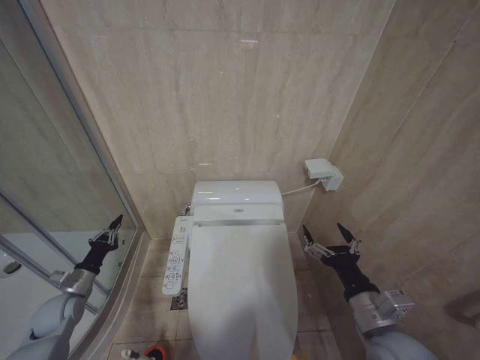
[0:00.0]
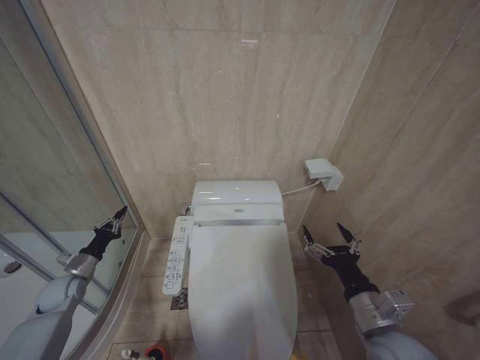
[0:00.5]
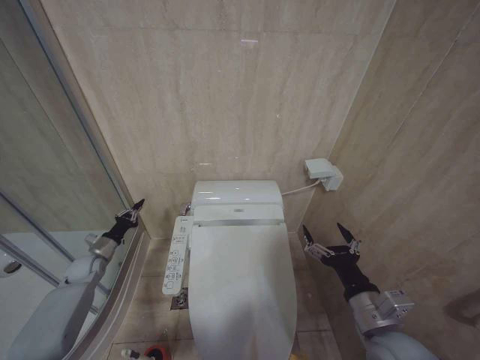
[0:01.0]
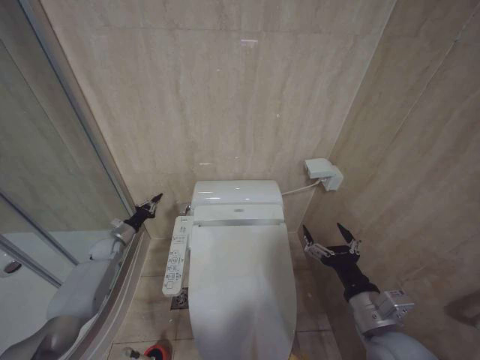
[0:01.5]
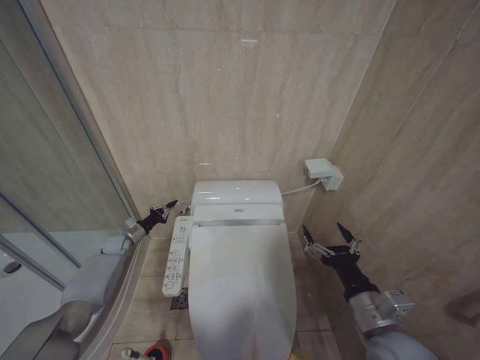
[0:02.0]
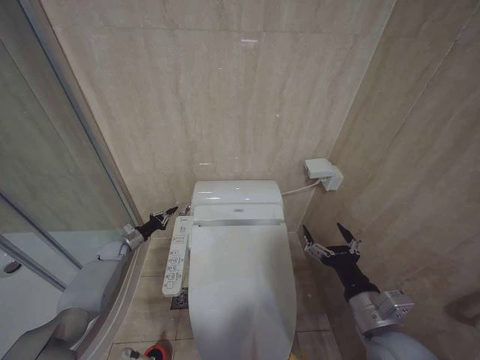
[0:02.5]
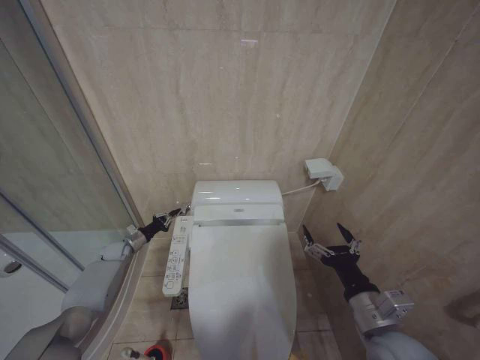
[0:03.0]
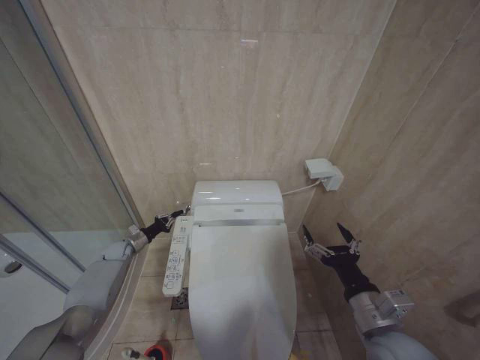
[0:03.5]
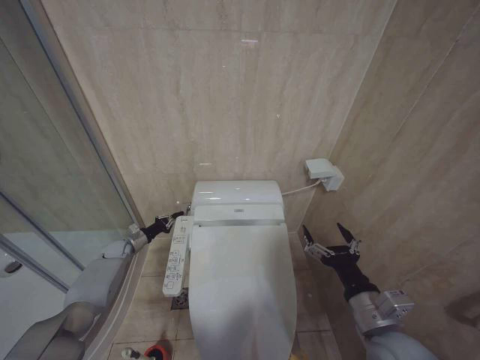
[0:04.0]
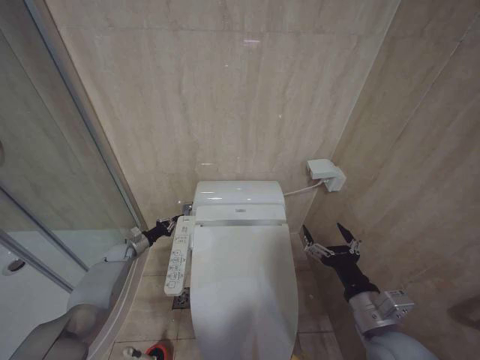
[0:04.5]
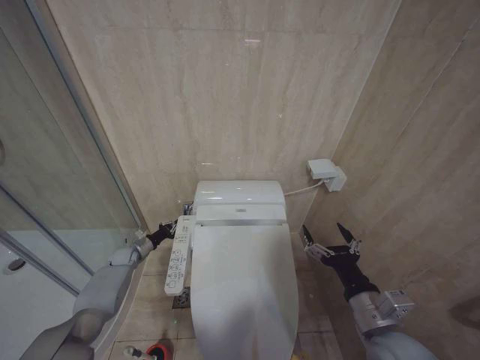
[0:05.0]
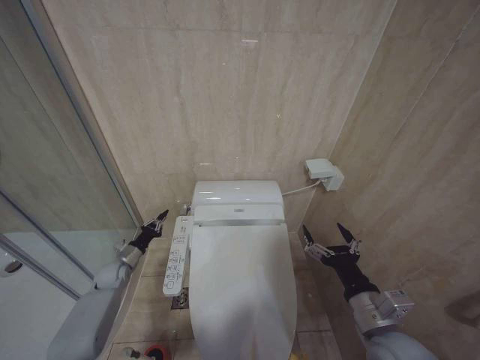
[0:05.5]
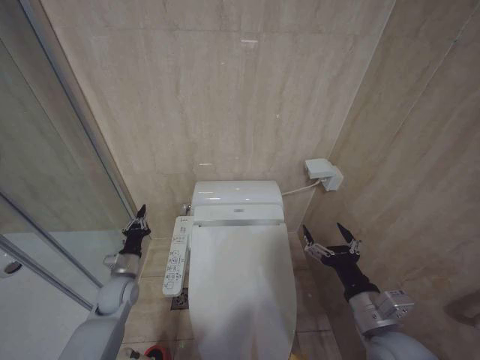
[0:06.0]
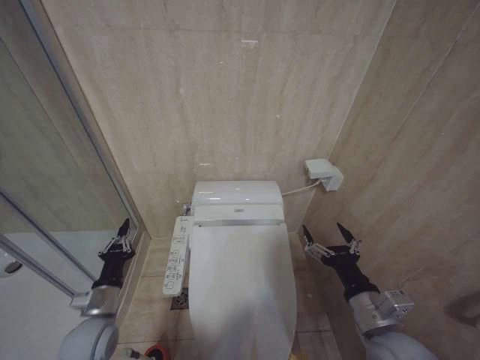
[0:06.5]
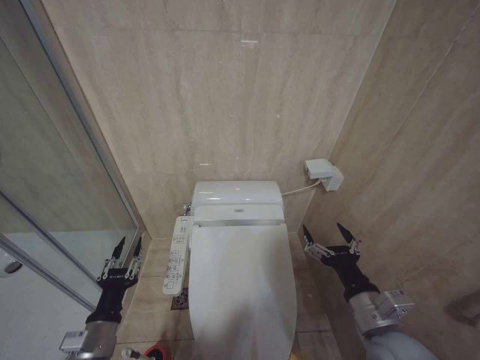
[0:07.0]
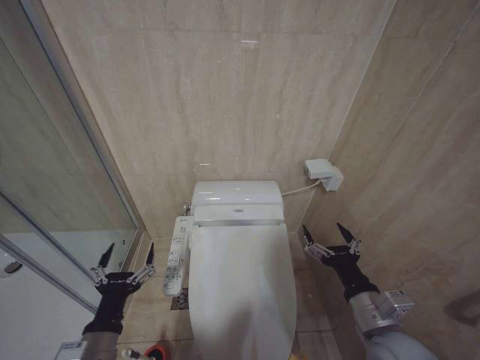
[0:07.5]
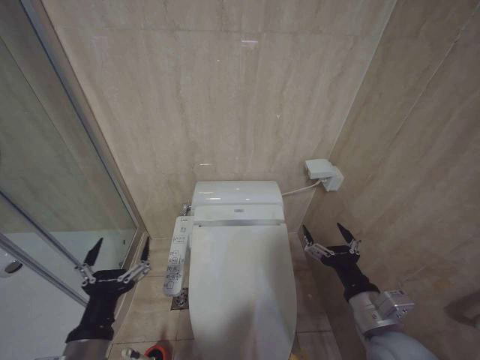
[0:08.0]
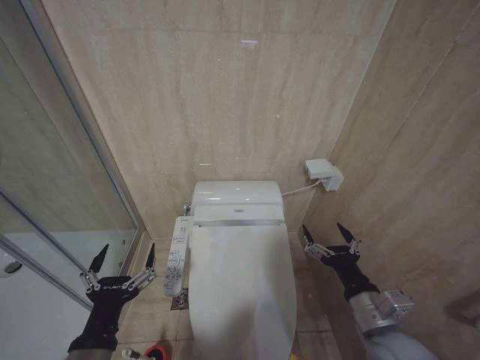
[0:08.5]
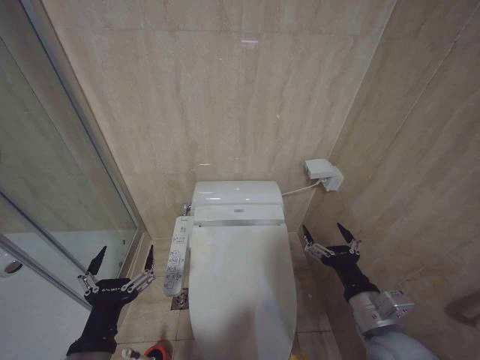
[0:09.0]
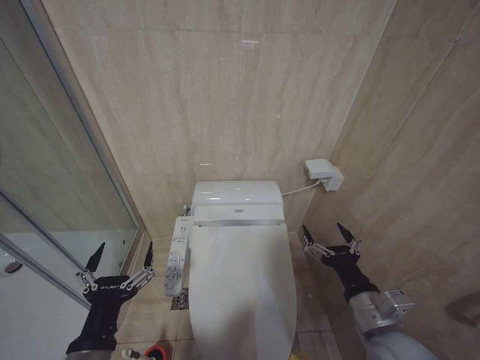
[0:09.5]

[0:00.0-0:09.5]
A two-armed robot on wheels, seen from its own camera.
Task of the whole recording: Open the toilet lid, clean the toilet bowl with a toilet brush, close the toilet lid, and flush.
0:00.0 to 0:02.0: The left gripper shifts some 20 cm forward.
0:02.0 to 0:04.0: There are only small adjustments of the grippers.
0:04.0 to 0:05.5: The left gripper goes roughly 5 cm backward.
0:05.5 to 0:07.5: The left gripper is displaced backward, to the right and upward by about 35 cm, and opens up.
0:07.5 to 0:09.5: The left gripper heads upward, covering roughly 5 cm.

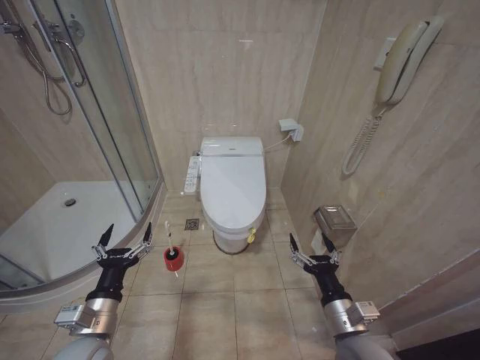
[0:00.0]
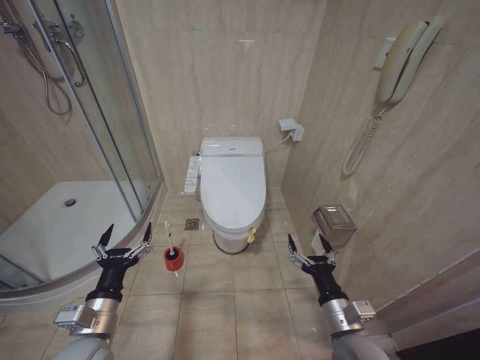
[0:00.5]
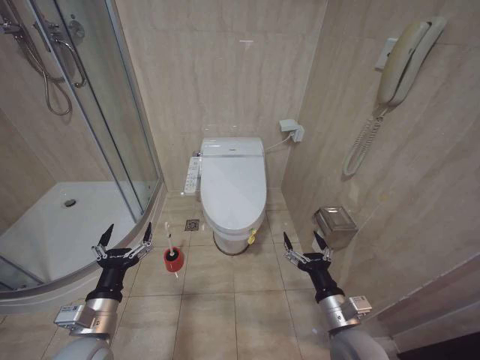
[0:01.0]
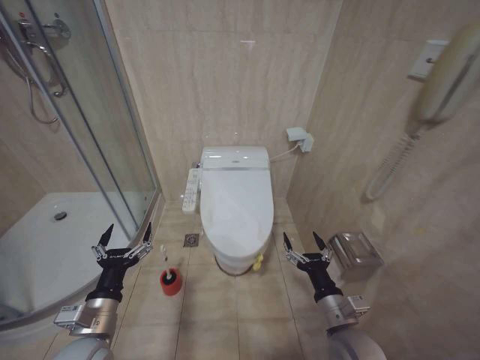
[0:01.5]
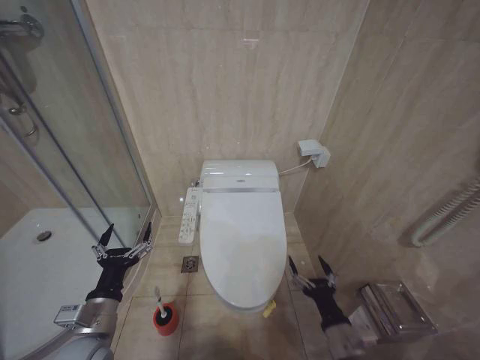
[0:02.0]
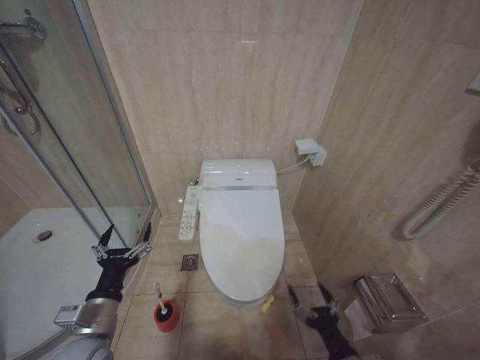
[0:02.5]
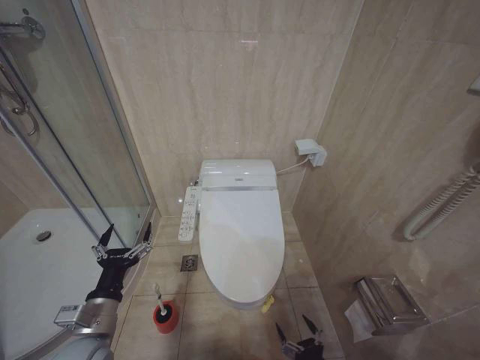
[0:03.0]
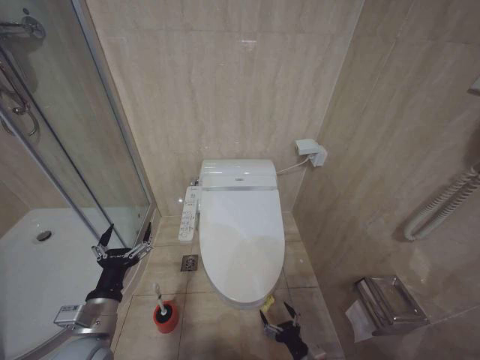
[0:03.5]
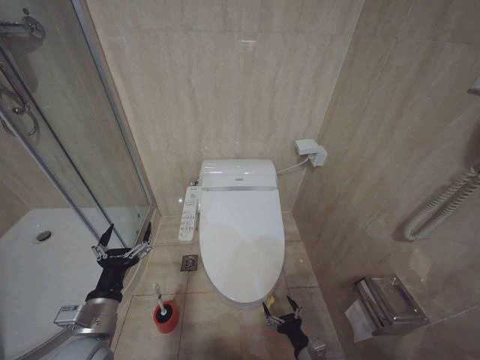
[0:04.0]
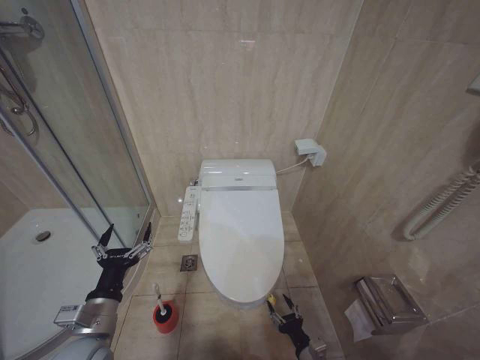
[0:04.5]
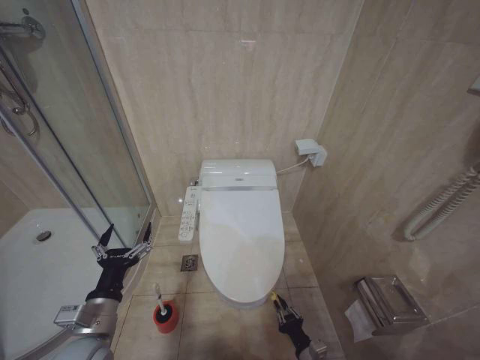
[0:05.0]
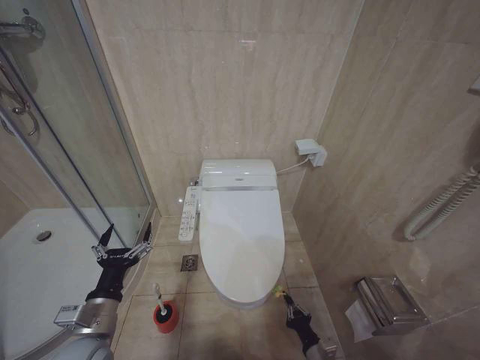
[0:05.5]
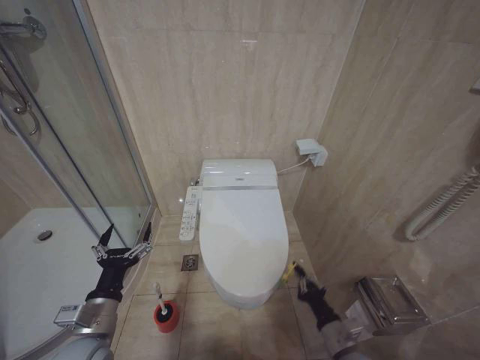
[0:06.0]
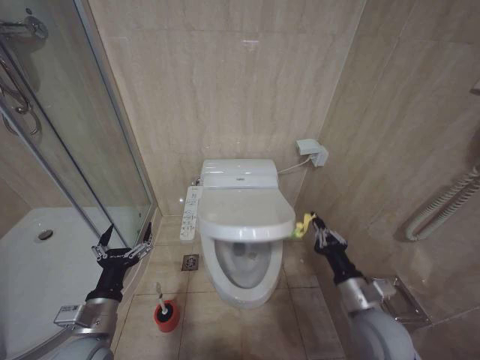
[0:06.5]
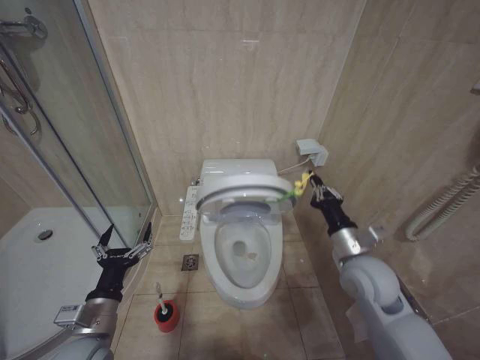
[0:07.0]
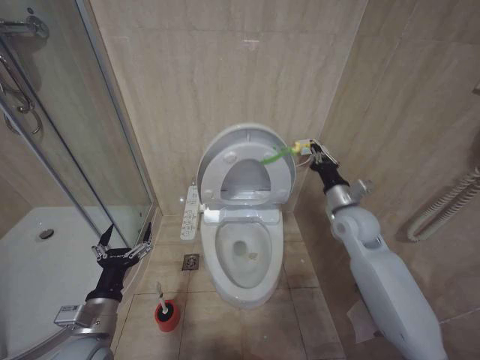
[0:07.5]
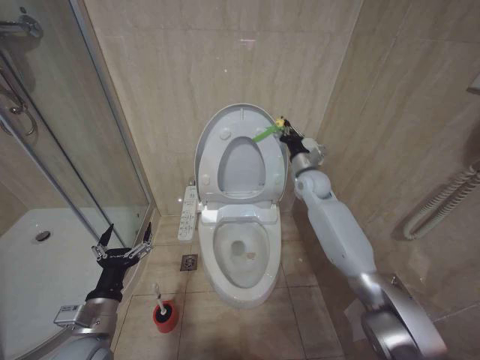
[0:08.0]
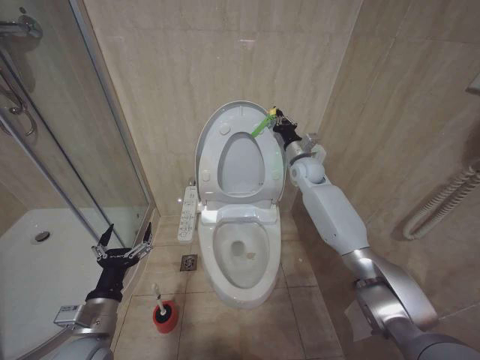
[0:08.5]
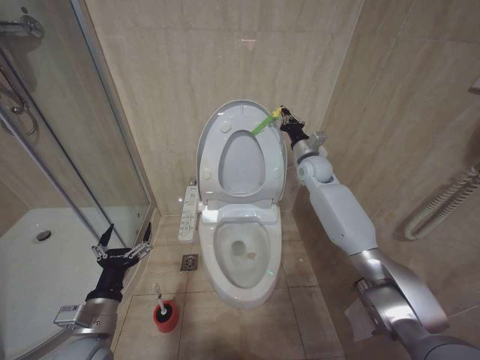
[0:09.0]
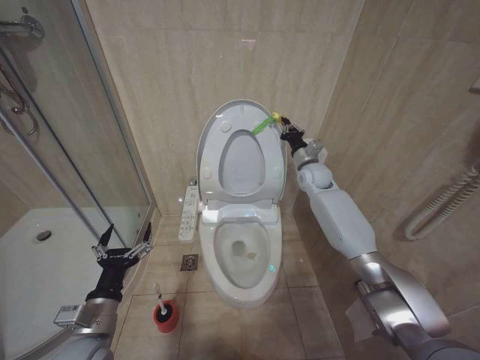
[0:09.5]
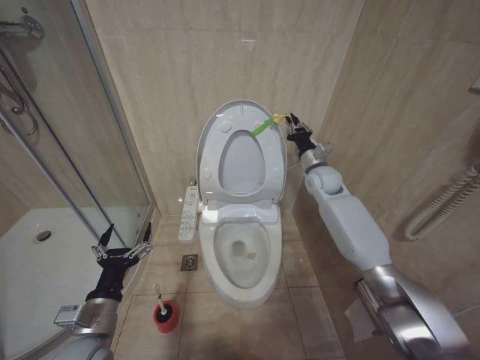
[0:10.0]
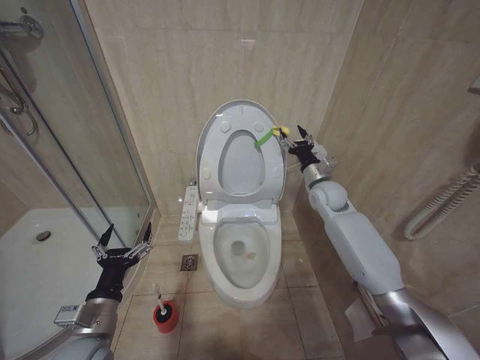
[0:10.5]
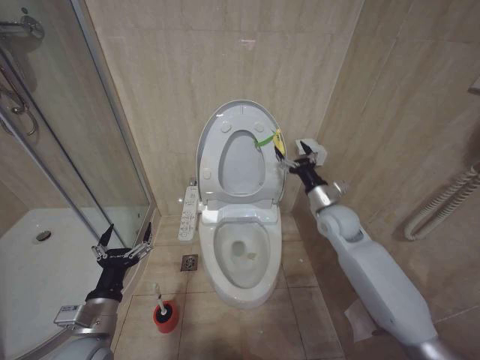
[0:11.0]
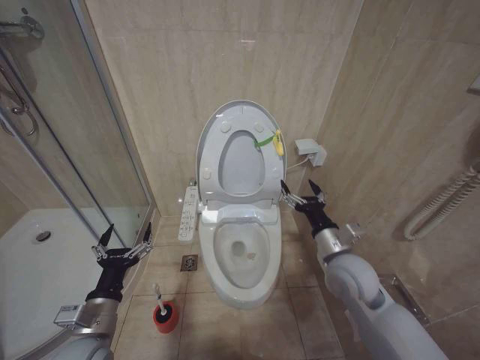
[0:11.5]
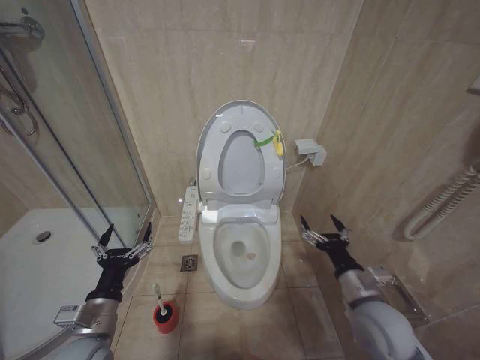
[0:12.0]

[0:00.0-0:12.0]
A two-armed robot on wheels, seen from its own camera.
Task of the whole recording: Open the toilet lid, clean the toilet bowl with a toilet brush, close the toilet lid, and flush.
0:02.0 to 0:04.0: The right gripper goes about 15 cm downward.
0:04.0 to 0:06.0: The right gripper moves upward, approximately 10 cm, and closes its fingers.
0:06.0 to 0:08.0: The right gripper shifts some 40 cm forward and upward.
0:10.0 to 0:12.0: The right gripper goes about 35 cm backward and downward, and opens up.

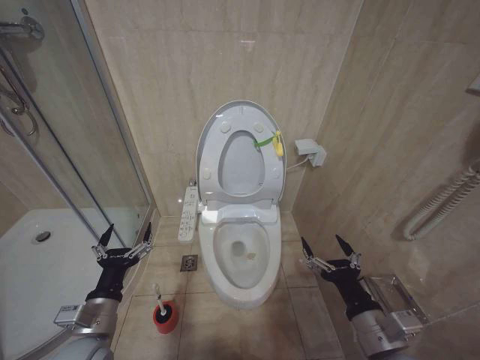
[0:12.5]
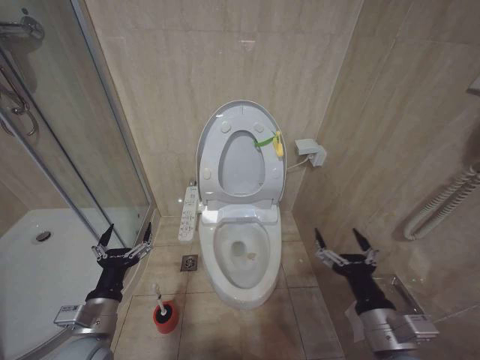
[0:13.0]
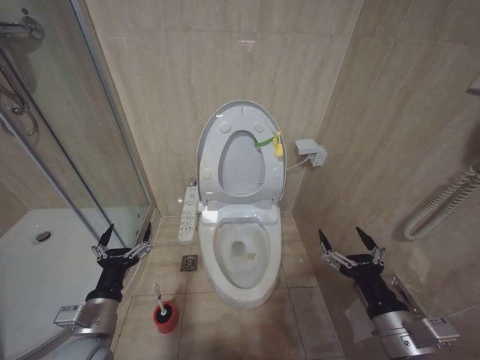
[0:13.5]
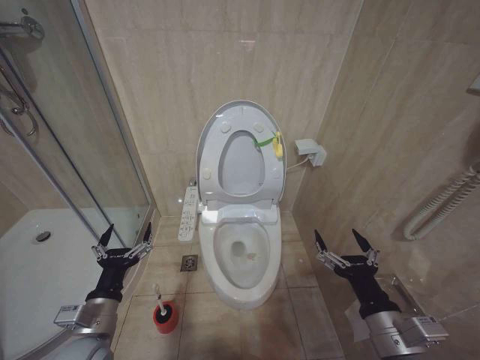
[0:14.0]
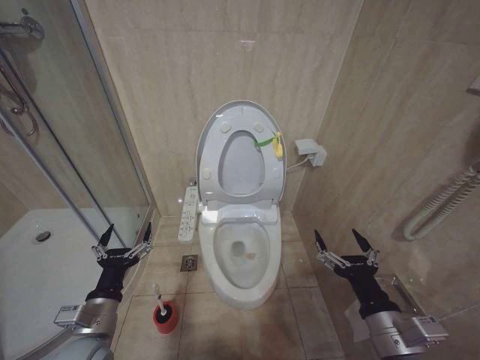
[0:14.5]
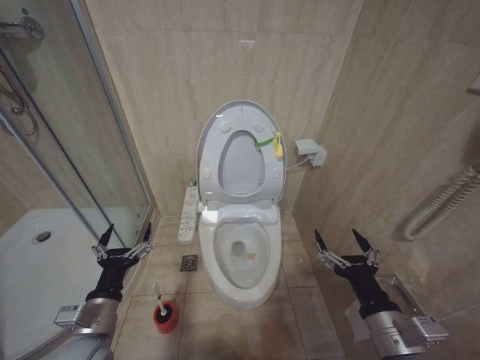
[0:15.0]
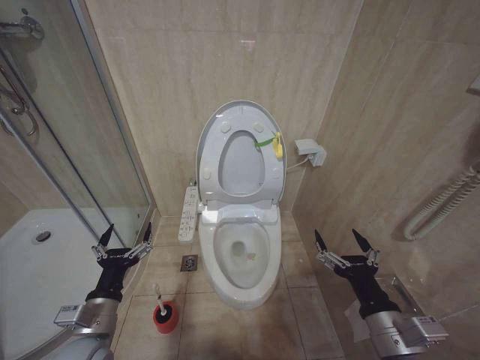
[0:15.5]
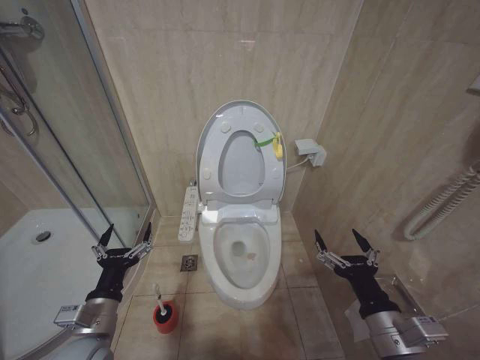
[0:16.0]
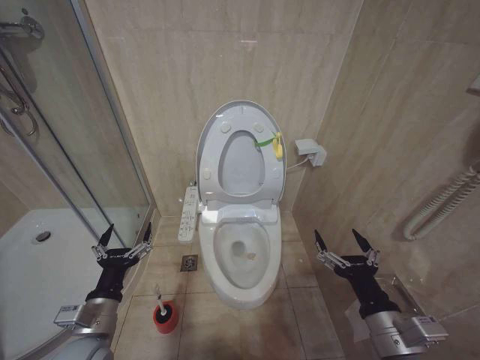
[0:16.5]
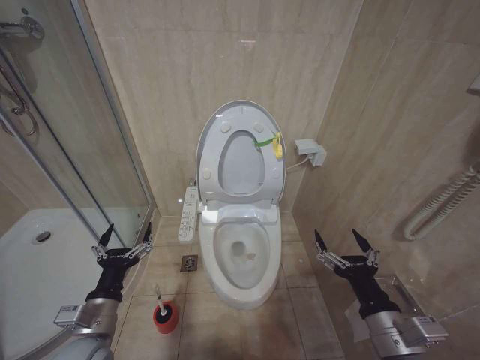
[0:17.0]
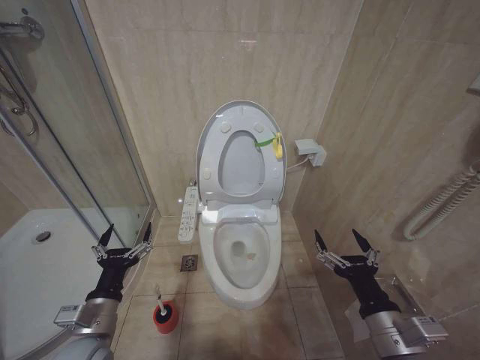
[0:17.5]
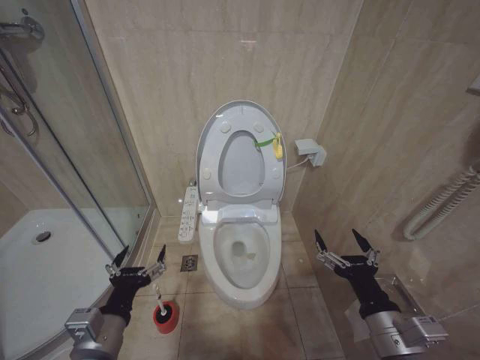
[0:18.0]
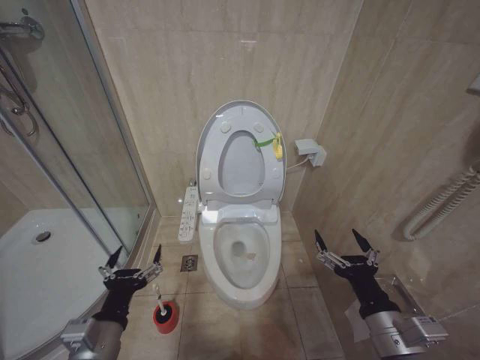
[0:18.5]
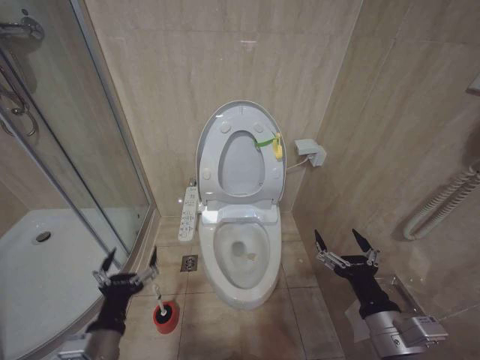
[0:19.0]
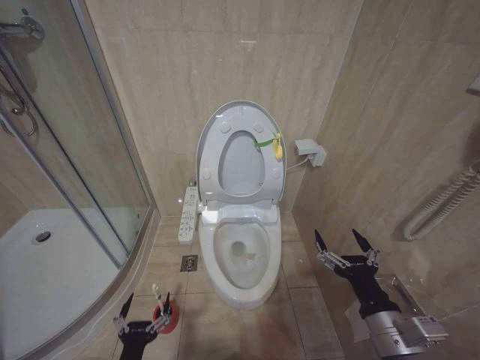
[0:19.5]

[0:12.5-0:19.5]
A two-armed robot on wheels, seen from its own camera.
Task of the whole recording: Open the toilet lid, clean the toilet bowl with a toilet brush, close the toilet lid, and flush.
0:12.5 to 0:14.5: The grippers move only a little.
0:14.5 to 0:17.5: Both grippers stay about where they are.
0:17.5 to 0:19.5: The left gripper travels downward and backward by about 15 cm.
